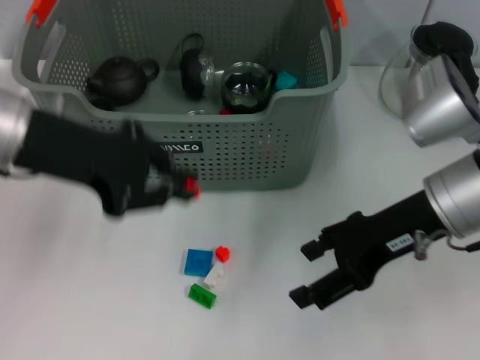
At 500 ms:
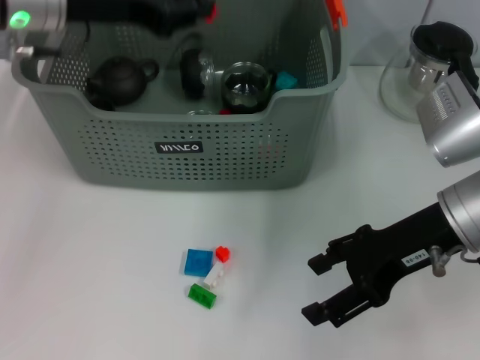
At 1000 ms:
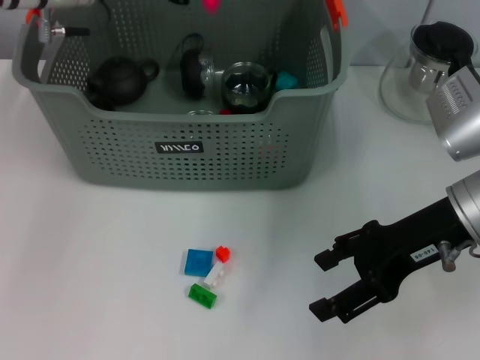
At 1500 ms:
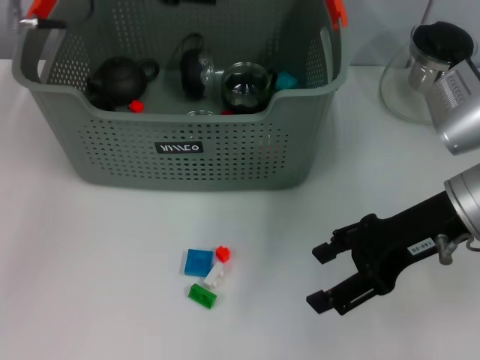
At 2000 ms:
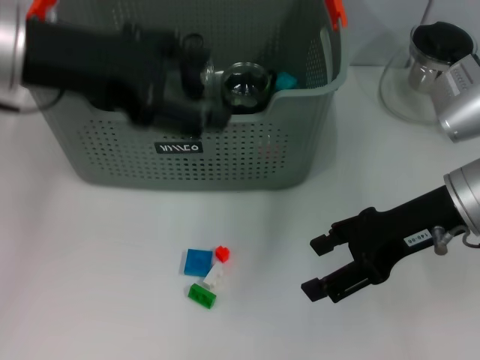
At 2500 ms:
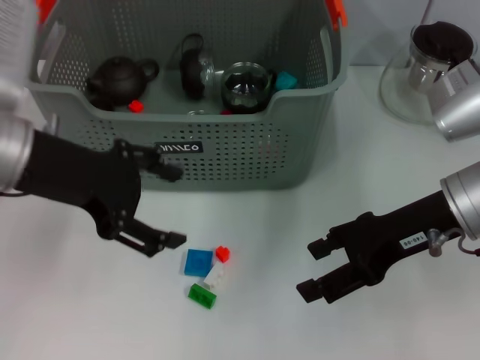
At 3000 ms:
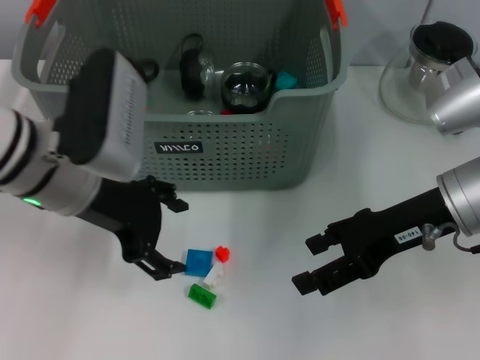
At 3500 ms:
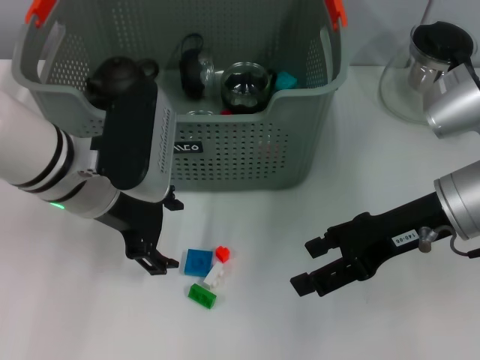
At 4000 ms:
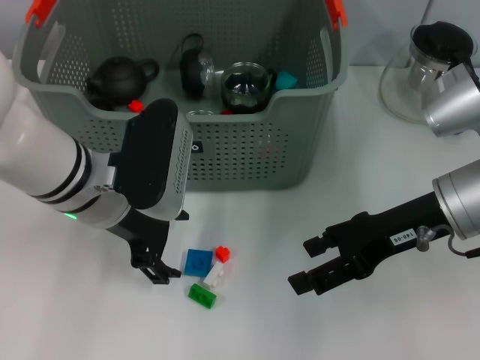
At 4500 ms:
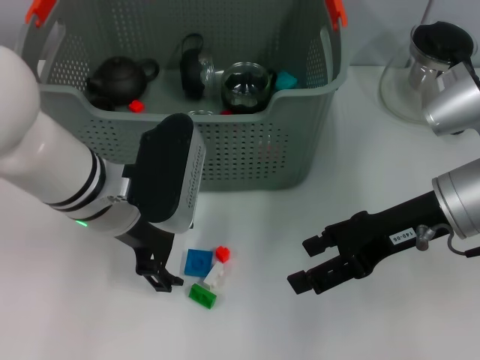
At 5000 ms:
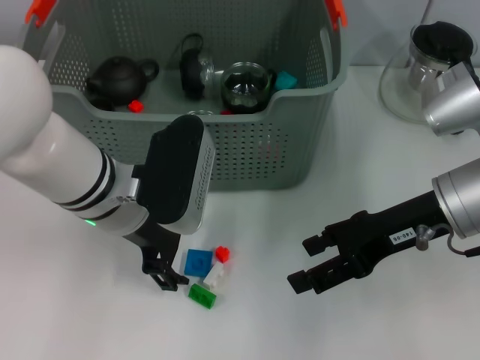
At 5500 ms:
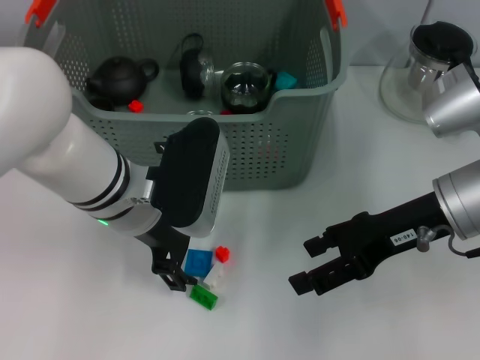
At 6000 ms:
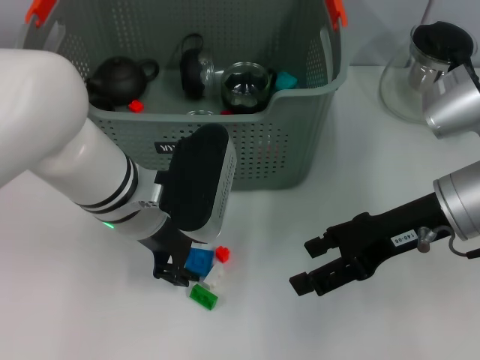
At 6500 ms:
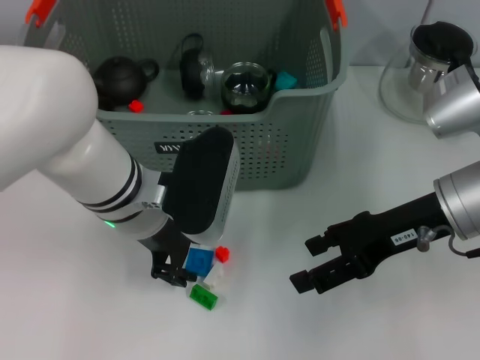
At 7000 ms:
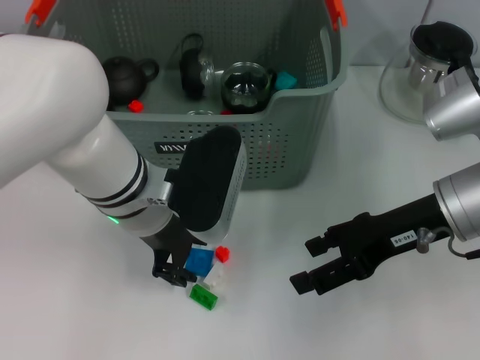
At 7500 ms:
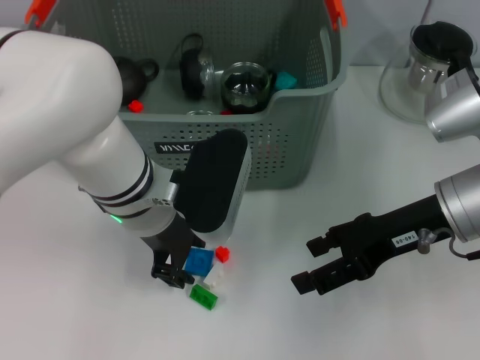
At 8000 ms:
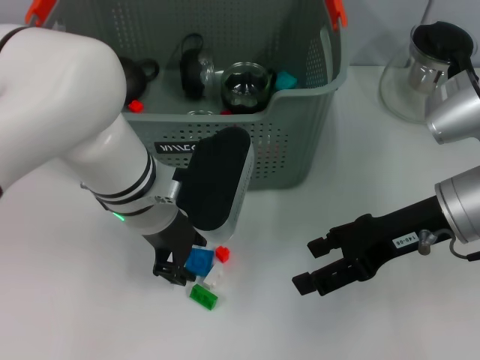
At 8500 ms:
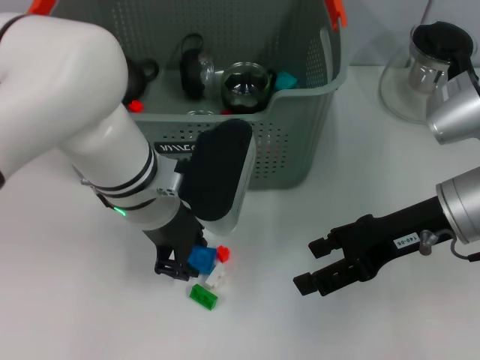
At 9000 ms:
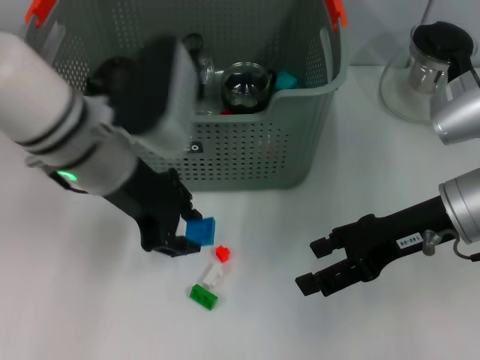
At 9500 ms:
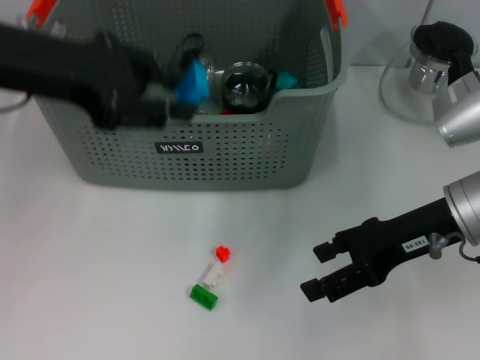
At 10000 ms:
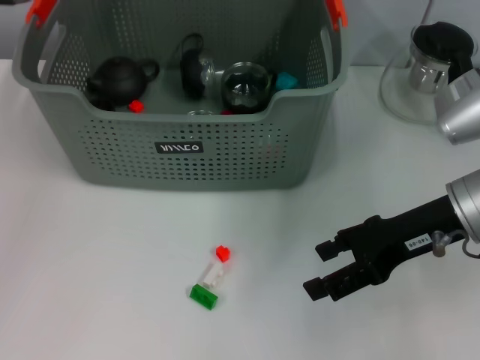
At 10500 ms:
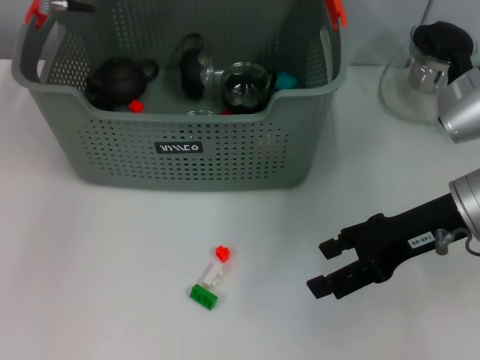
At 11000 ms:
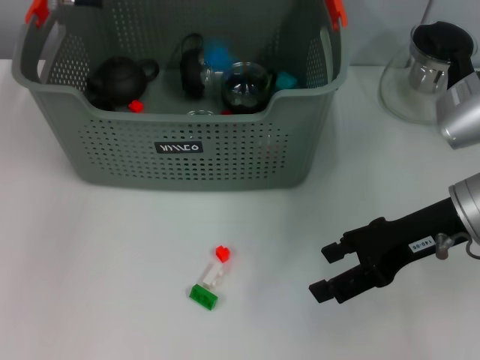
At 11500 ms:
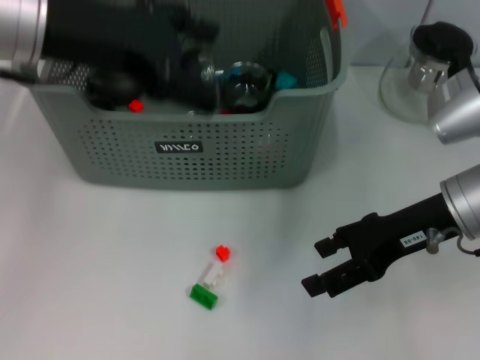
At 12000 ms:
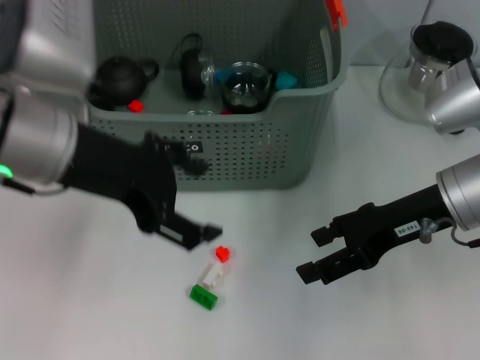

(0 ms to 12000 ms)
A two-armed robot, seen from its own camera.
Task of the whole recording: pick up the teacup on the table and place it into the storage bin, pick up the block on the table and place it into the storage bin.
Step, 0 ms - 1000 ms: Place the orange block in the storage box with left gripper.
Step, 1500 ms - 8000 ms: Grasp the dark blue block with left gripper.
Step, 8500 ms - 10500 ms: Place the dark blue block in the storage box with left gripper.
0 ms - 2000 ms: The left gripper travels forward and back again, some 10 cm each way, and opens its fingers.
2000 ms - 4000 ms: The left gripper shifts about 15 cm downward and to the right.
4000 ms - 8000 ms: There are only small adjustments of the grippers.
8000 ms - 10000 ms: The left gripper is displaced upward, to the left and forward by some 25 cm.
10000 ms - 12000 ms: The left gripper travels backward, downward and to the right by approximately 15 cm, and opens up.

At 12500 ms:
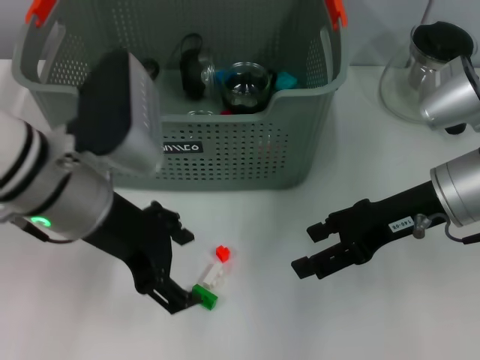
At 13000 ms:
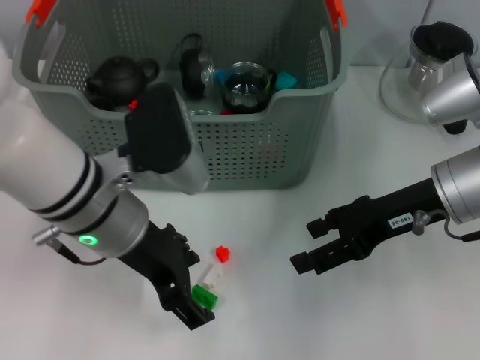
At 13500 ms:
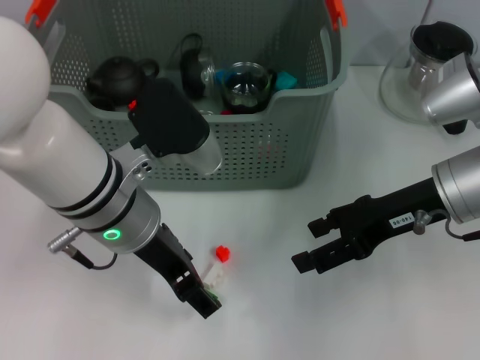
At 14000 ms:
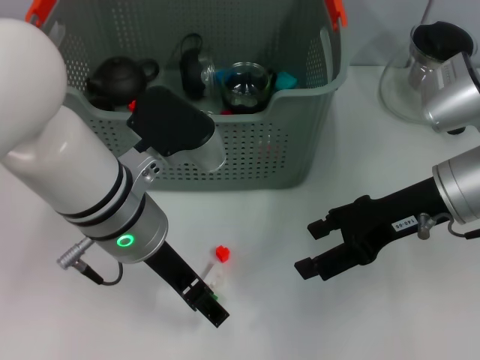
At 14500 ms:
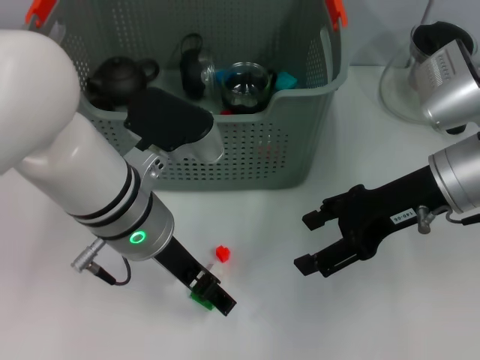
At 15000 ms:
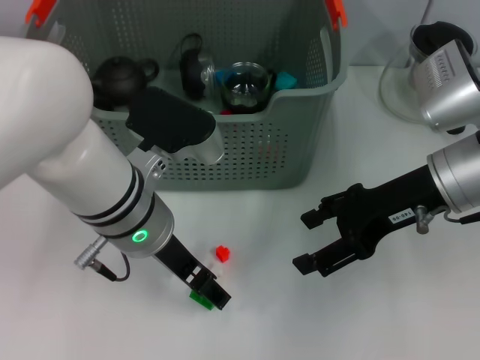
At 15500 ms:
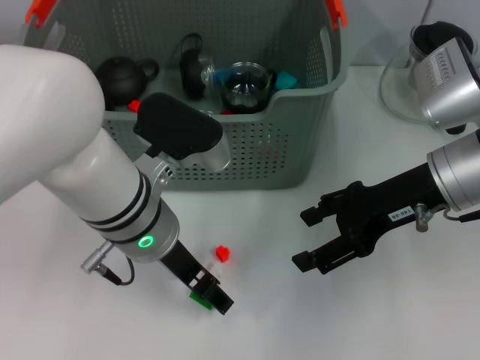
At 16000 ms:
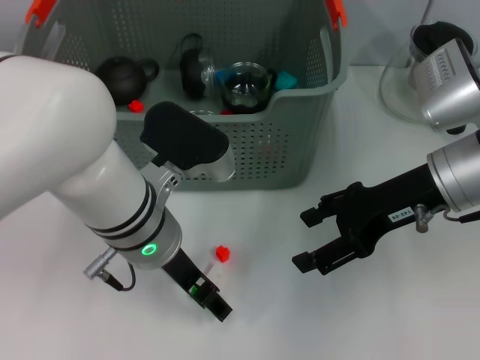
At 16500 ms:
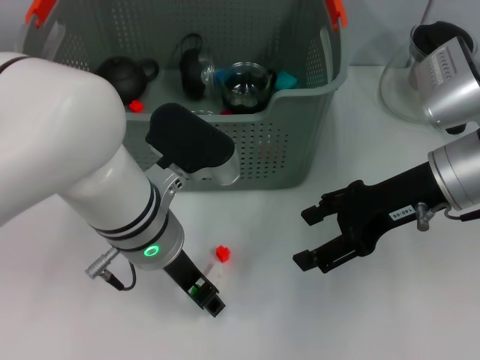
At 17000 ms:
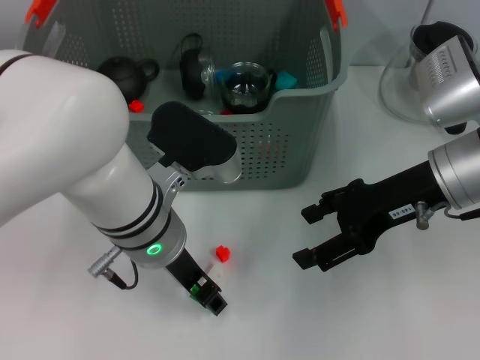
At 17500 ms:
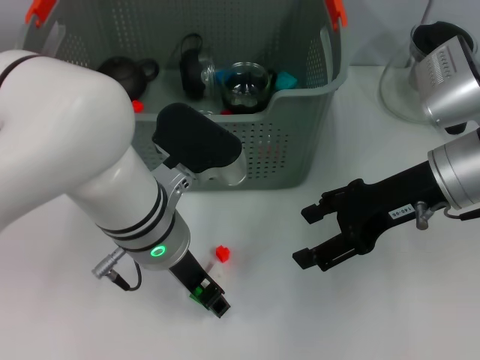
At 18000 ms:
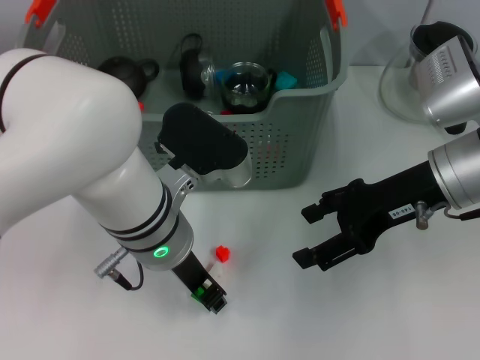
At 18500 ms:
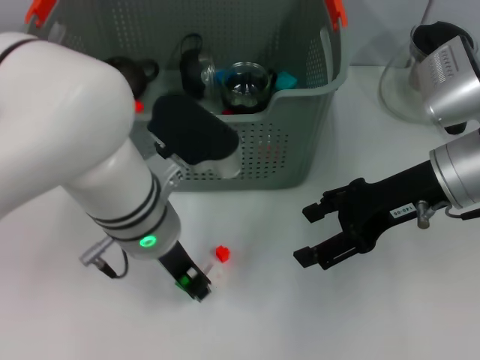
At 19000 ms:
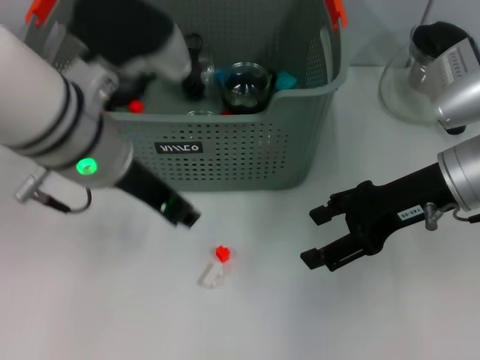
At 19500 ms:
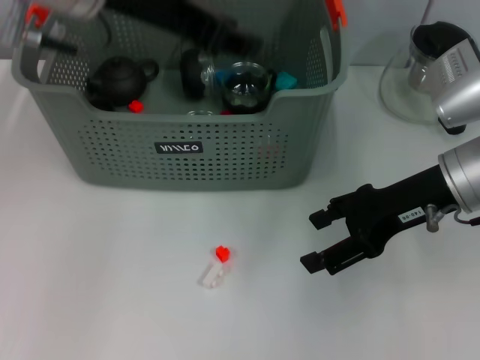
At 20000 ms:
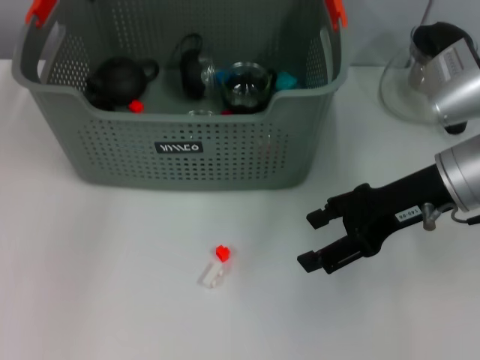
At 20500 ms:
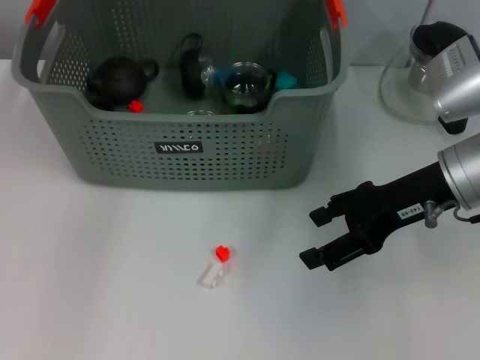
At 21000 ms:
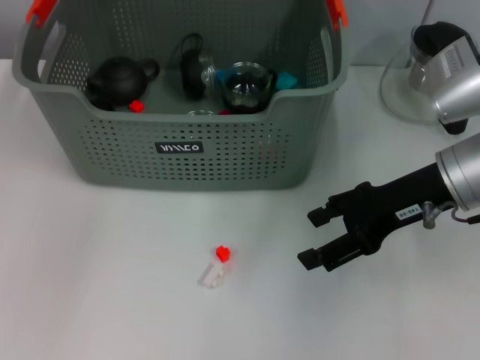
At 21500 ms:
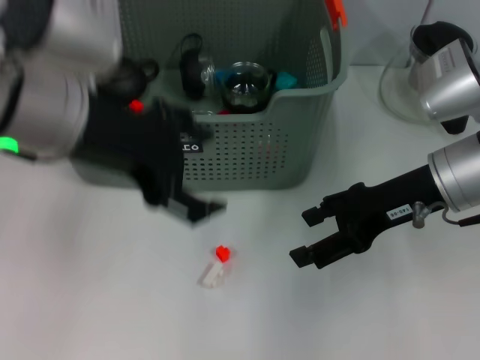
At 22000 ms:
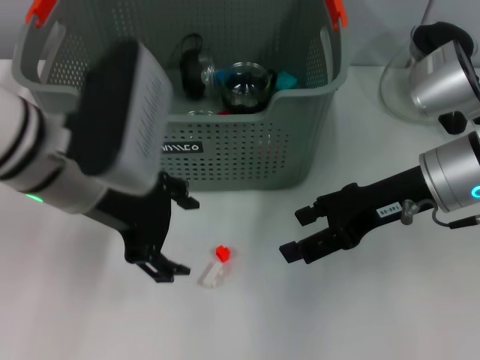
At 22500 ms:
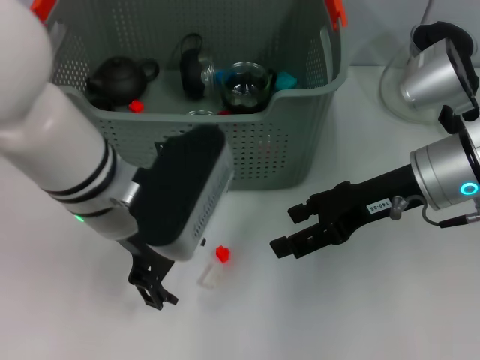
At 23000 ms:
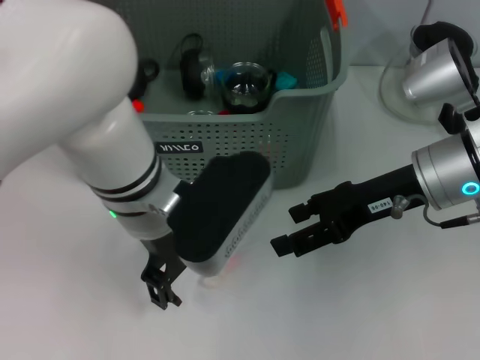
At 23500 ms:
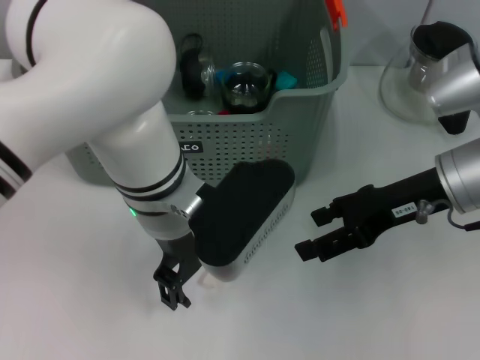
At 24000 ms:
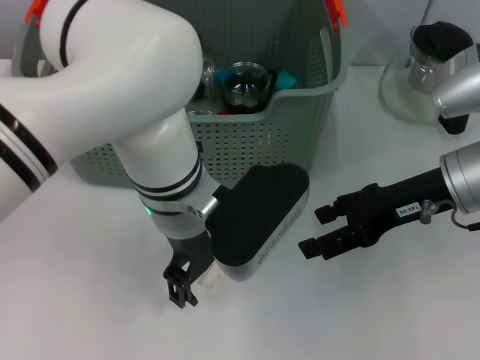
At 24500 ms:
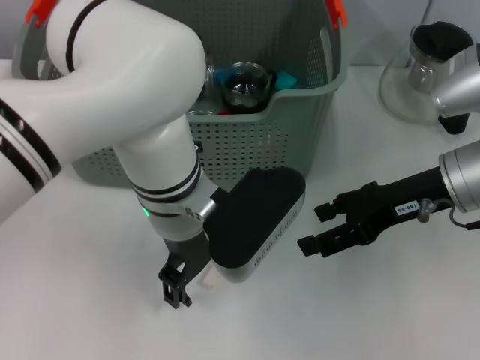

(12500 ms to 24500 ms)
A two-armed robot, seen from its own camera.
Task of the whole recording: pick up the teacup on the table and place it into the storage bin, pick up the block on the table and place it into the storage bin.
Step, 12500 ms - 18000 ms: Grasp the green block with left gripper.
Step, 18500 ms - 20500 ms: Place the green block in the storage box with left gripper.
12500 ms - 14500 ms: The left gripper moves to the right, roughly 5 cm.
14500 ms - 16500 ms: The grippers stay close to where they were, moving slightly.
16500 ms - 18500 ms: The left gripper closes.
18500 ms - 20500 ms: The left gripper shifts about 20 cm upward and forward.
20500 ms - 22500 ms: The left gripper moves backward and downward, approximately 20 cm, and opens up.
22500 ms - 24500 ms: The left gripper heads to the right, covering some 5 cm.

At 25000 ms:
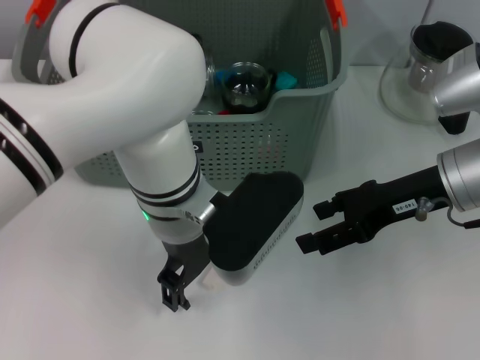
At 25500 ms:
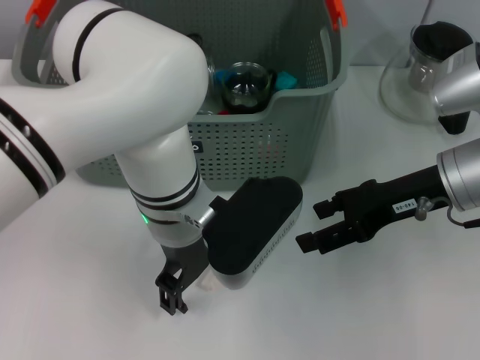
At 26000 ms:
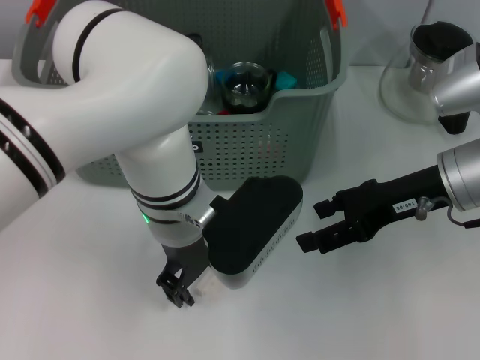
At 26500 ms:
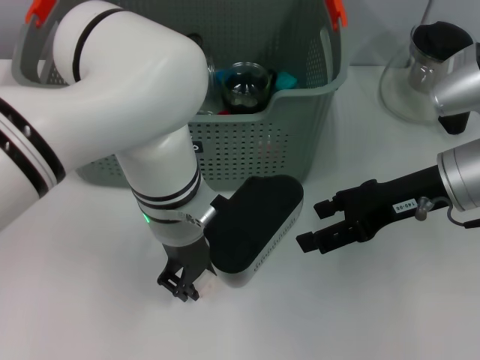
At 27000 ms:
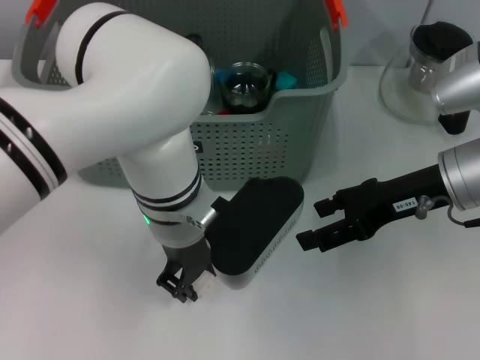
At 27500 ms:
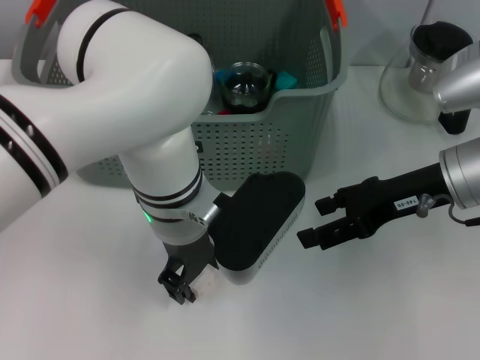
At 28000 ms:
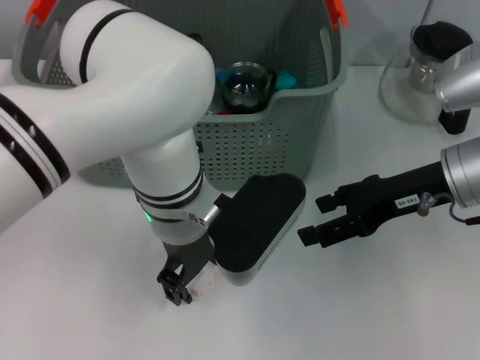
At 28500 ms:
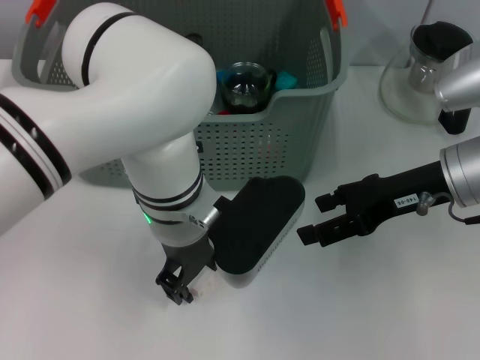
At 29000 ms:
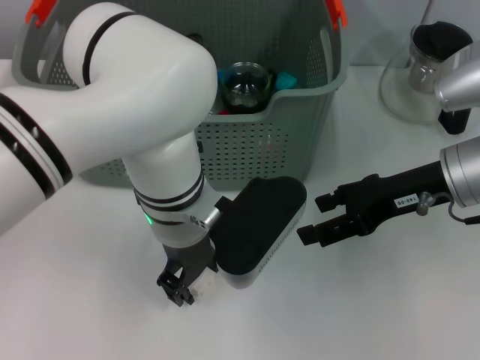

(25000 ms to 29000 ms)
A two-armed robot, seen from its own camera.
Task of the whole recording: pick up the teacup on the table and place it into the storage bin, pick up the block on the table and place it into the storage bin.
25000 ms - 27000 ms: The left gripper closes its fingers.
27000 ms - 29000 ms: Both grippers stay about where they are.
